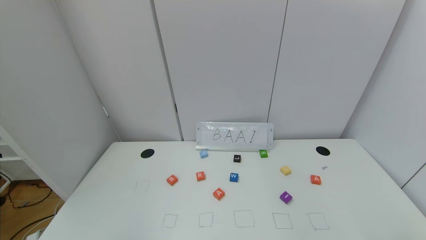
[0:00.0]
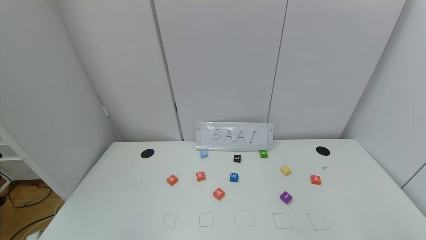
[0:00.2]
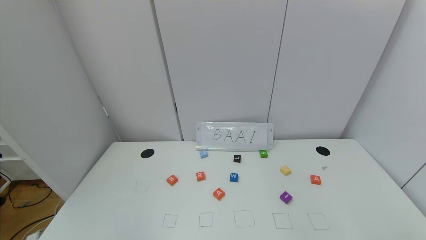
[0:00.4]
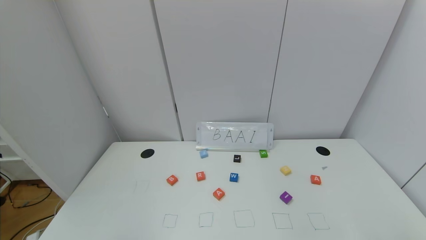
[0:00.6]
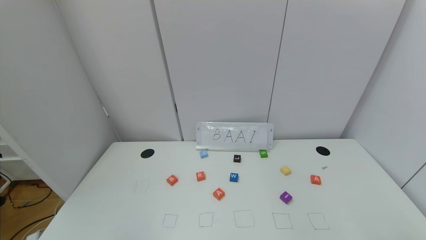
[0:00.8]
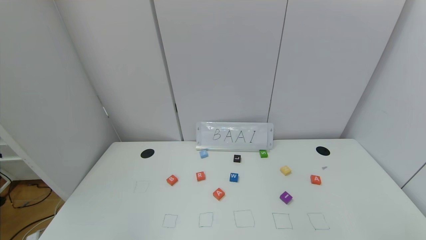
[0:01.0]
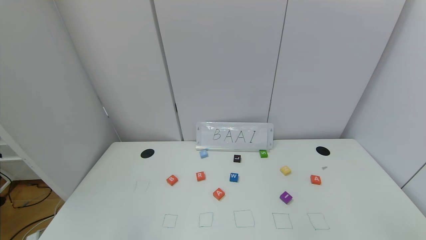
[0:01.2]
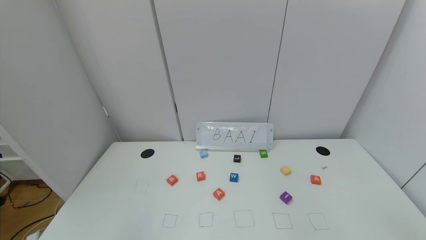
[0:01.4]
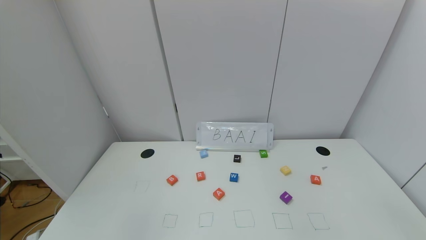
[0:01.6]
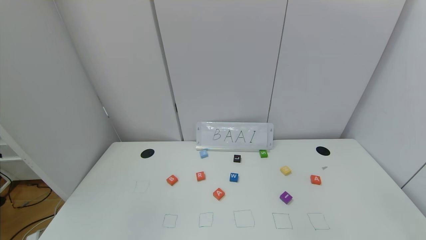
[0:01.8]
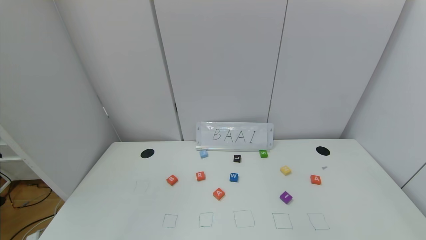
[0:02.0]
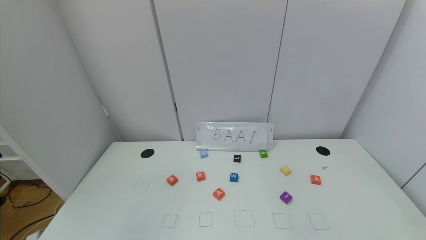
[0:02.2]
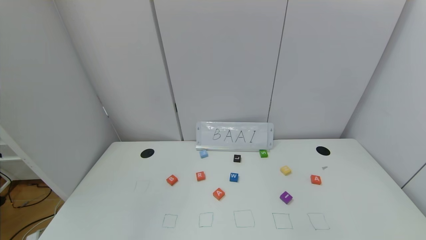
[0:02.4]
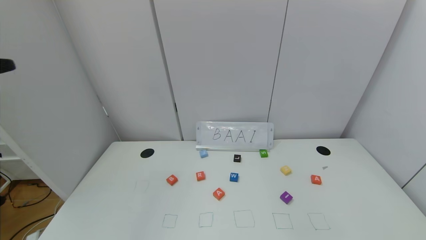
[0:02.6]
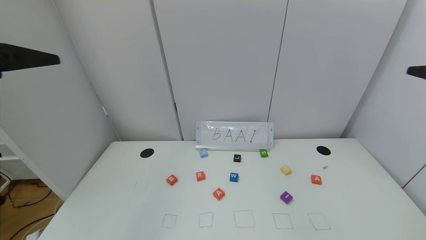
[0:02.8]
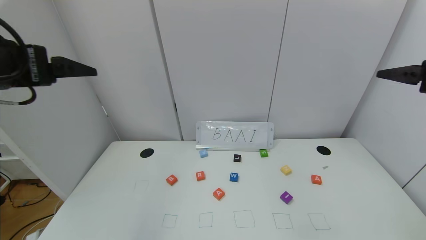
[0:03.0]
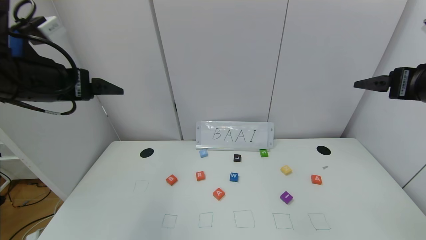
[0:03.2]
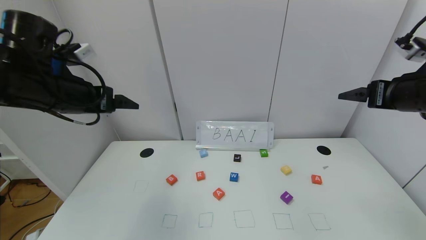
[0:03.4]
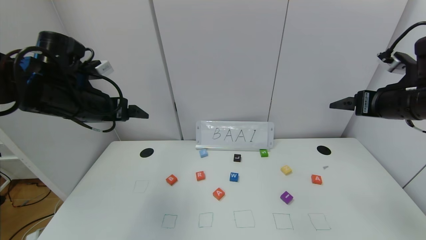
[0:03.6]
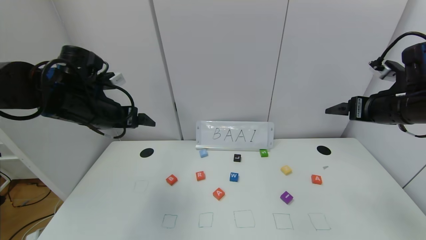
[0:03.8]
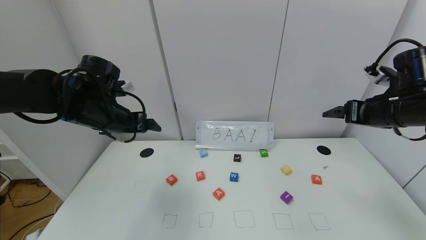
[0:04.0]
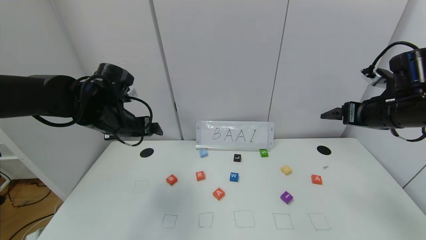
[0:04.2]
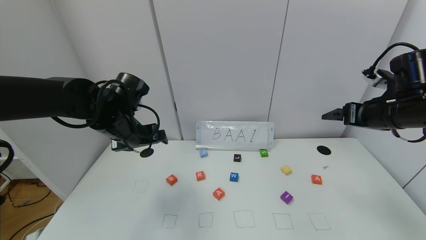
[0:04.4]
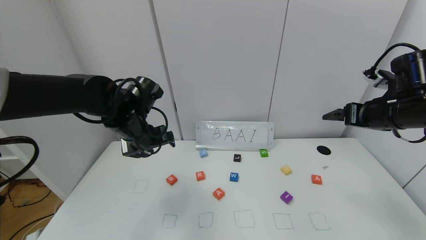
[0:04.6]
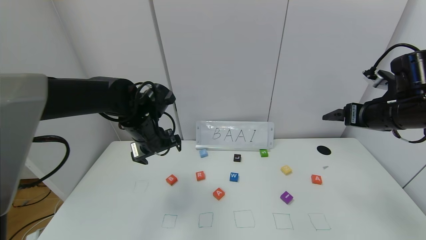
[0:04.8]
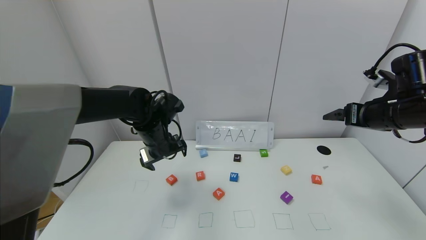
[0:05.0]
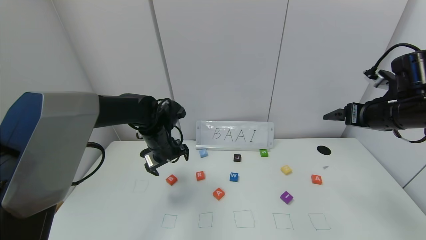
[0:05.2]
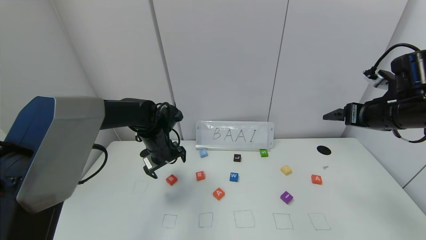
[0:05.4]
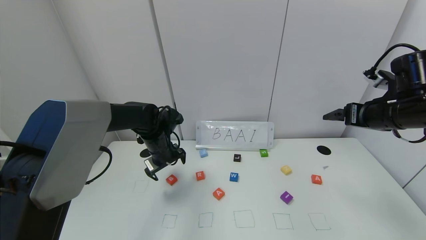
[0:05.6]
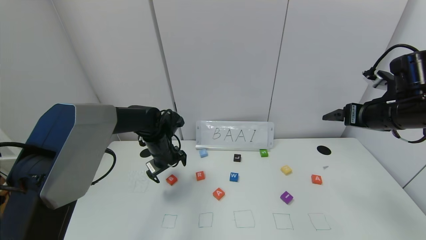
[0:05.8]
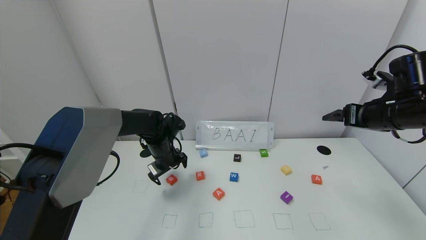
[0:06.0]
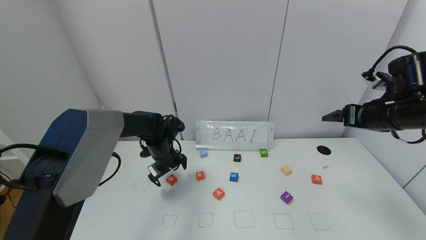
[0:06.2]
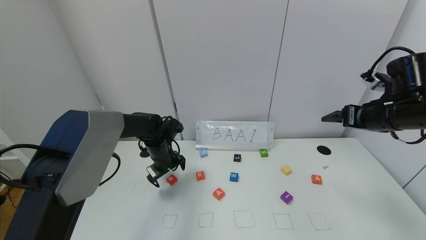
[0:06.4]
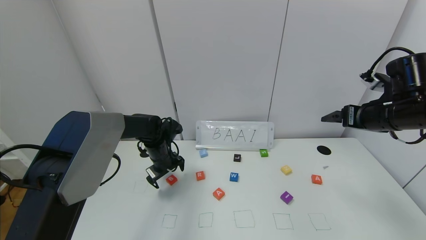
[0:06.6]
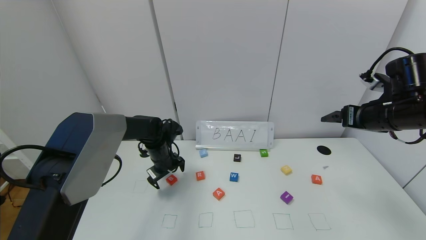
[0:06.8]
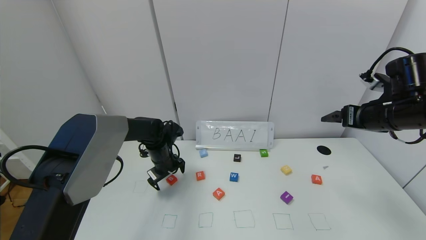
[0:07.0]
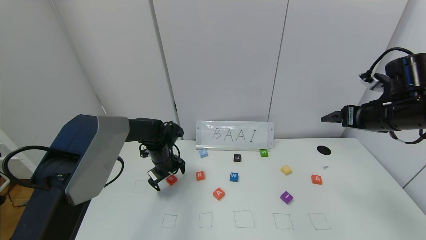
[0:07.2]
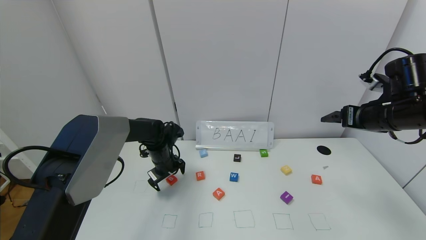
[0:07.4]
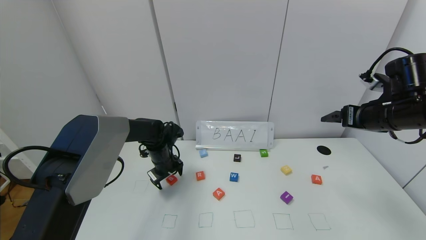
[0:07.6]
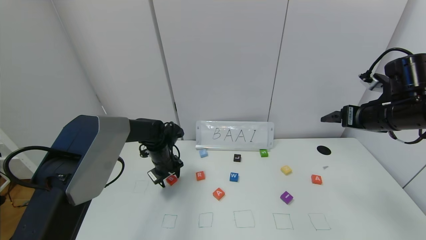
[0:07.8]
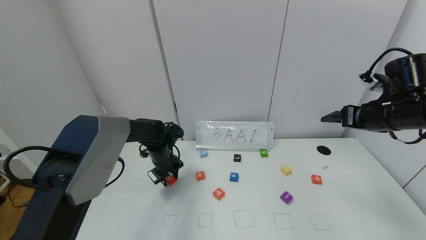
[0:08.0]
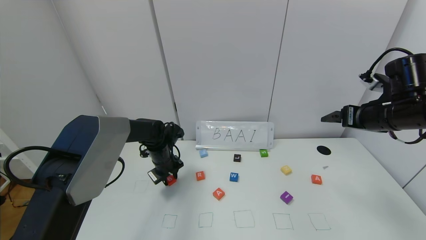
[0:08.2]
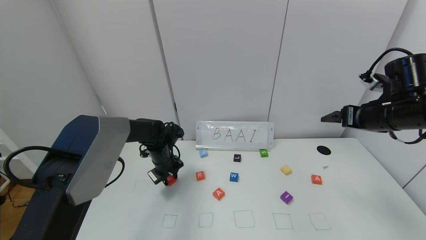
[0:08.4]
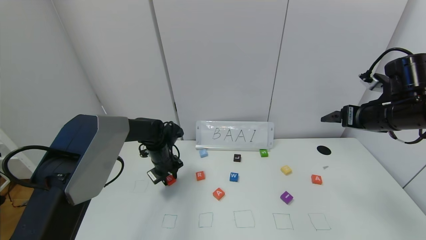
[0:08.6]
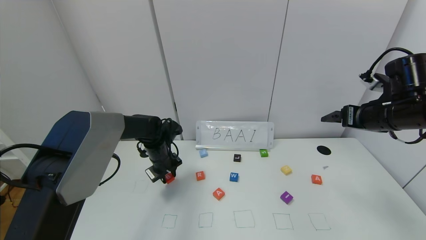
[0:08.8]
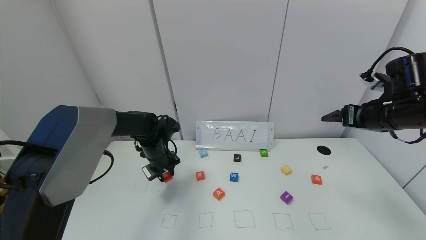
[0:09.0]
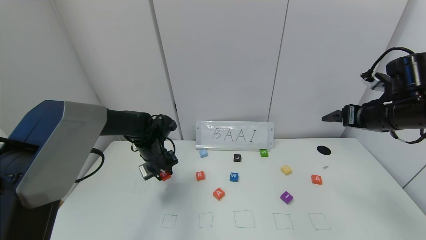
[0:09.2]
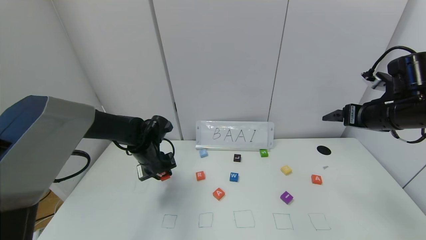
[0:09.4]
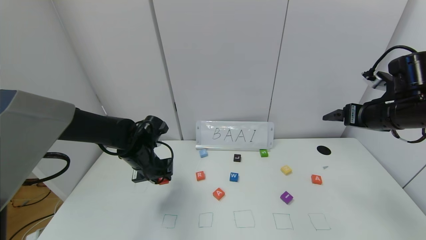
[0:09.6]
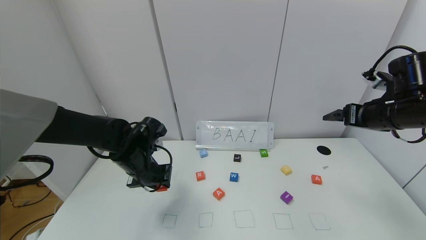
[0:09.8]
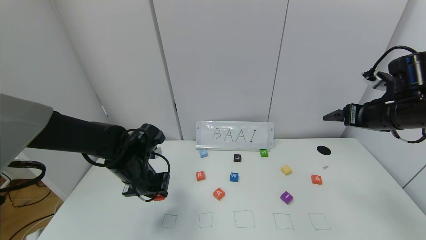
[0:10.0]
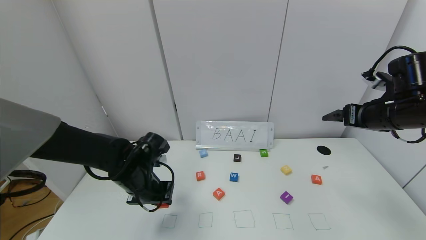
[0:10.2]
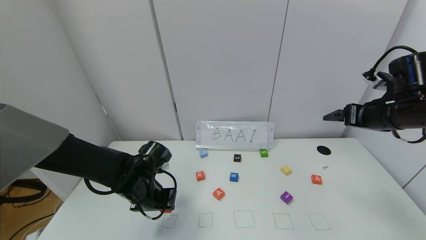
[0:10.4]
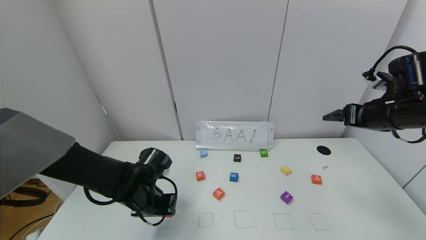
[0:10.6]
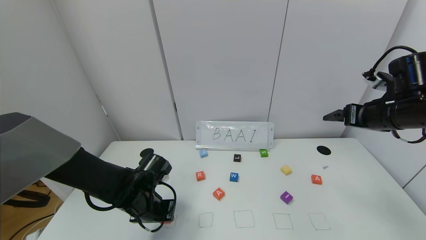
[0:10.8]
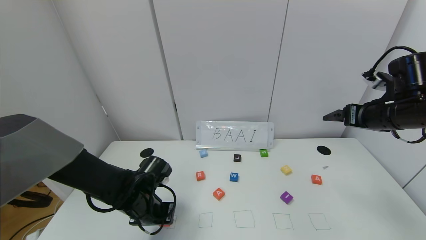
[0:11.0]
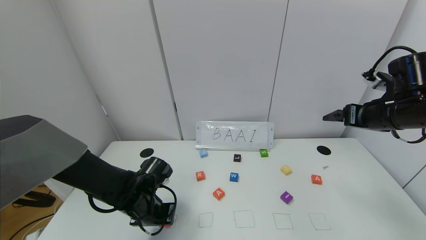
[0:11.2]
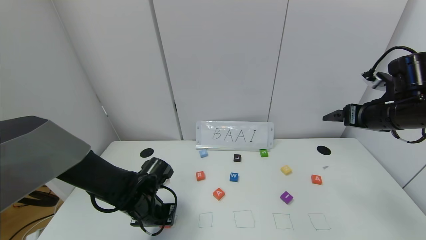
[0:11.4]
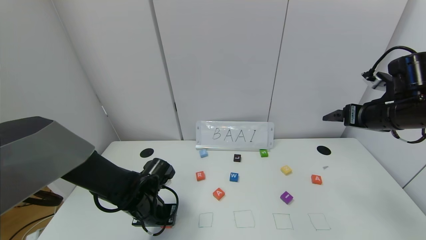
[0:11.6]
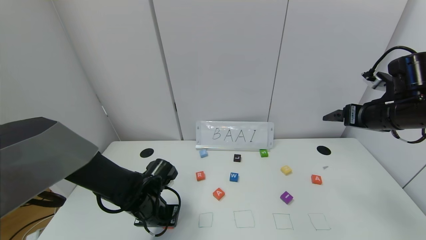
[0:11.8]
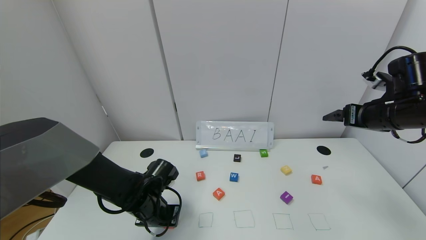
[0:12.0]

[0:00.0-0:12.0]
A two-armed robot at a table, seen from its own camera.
Task of the whole recording: use the gripper to find blocks with the letters b, a, a, and i on the table and arrange them into BAAI, then find r and N and turn the arranged baai into brian.
0:01.6 to 0:03.0: Both grippers travel together forward and upward, some 30 cm.
0:03.0 to 0:04.4: The right gripper heads forward and downward, covering approximately 15 cm, while the left gripper is displaced downward, forward and to the right by approximately 20 cm.
0:04.4 to 0:06.0: The left gripper shifts roughly 15 cm downward and forward.
0:06.0 to 0:07.6: The grippers move only a little.
0:07.6 to 0:09.0: The left gripper closes its fingers.
0:09.0 to 0:10.4: The left gripper shifts approximately 15 cm backward.
0:10.4 to 0:12.0: The grippers move only a little.

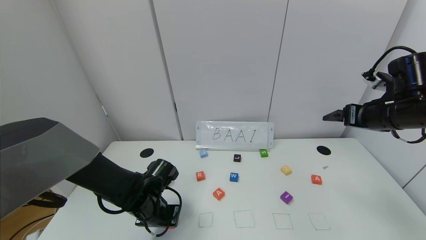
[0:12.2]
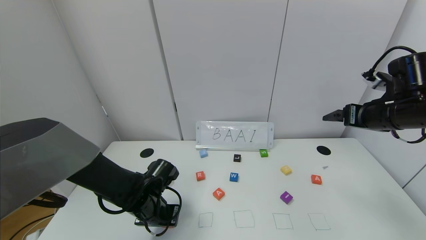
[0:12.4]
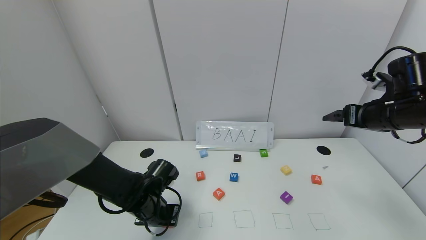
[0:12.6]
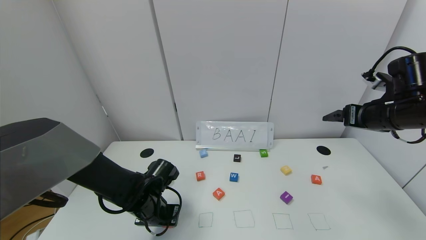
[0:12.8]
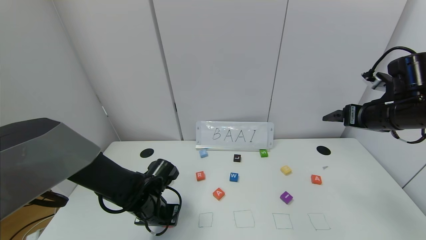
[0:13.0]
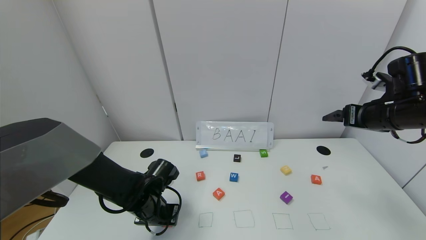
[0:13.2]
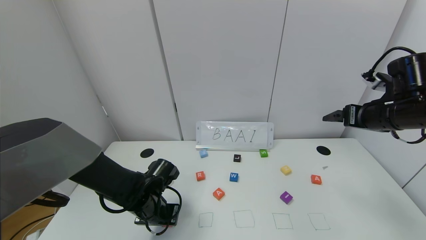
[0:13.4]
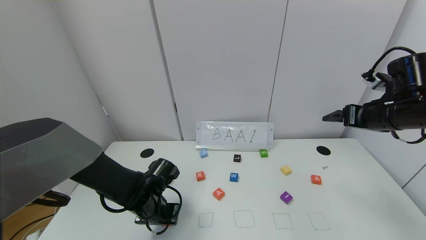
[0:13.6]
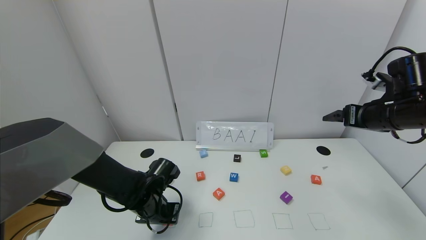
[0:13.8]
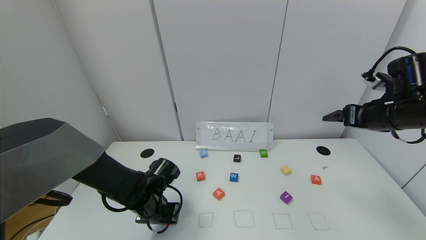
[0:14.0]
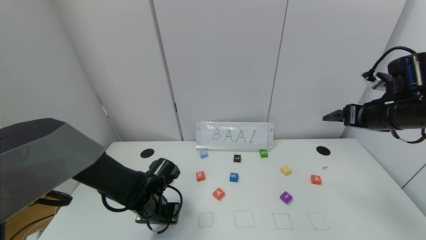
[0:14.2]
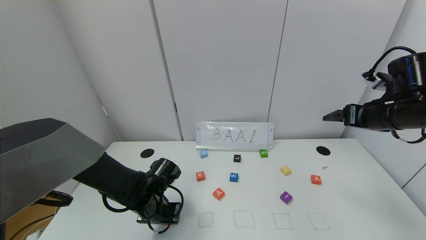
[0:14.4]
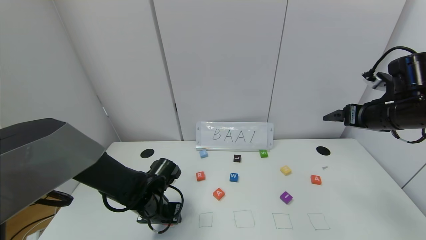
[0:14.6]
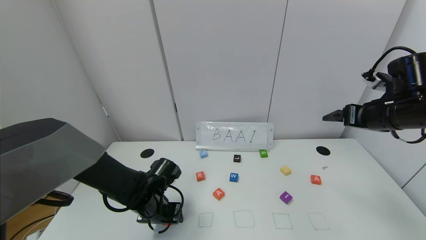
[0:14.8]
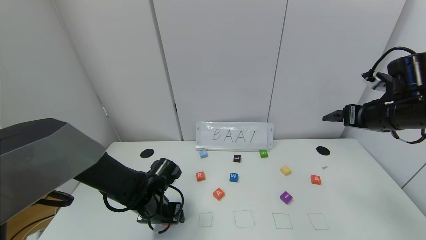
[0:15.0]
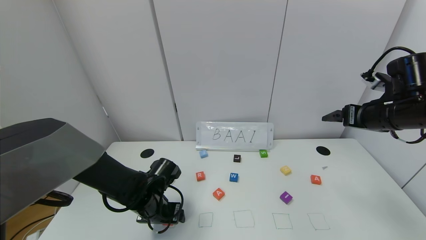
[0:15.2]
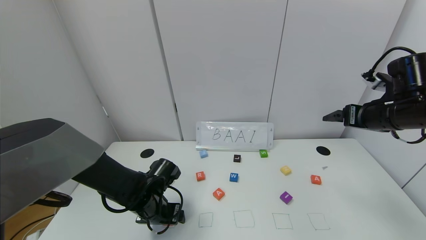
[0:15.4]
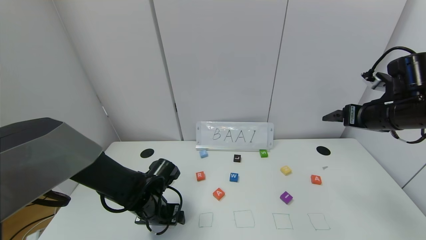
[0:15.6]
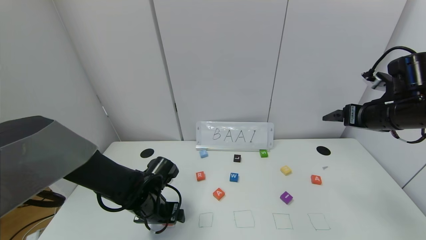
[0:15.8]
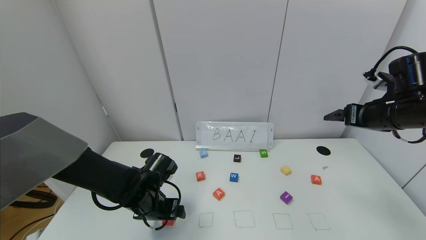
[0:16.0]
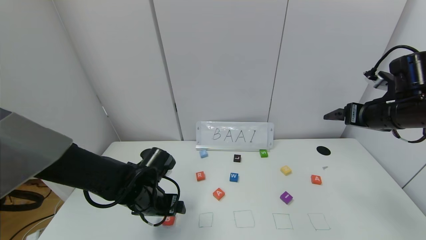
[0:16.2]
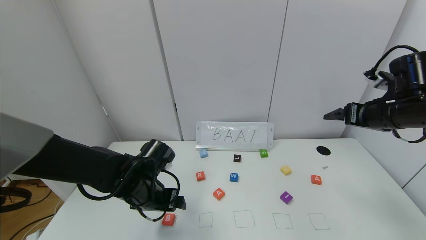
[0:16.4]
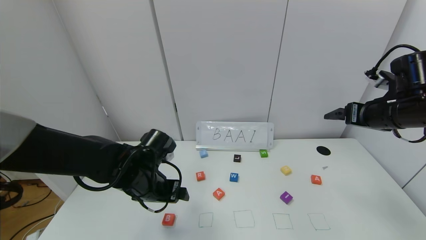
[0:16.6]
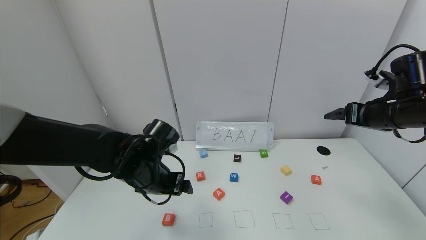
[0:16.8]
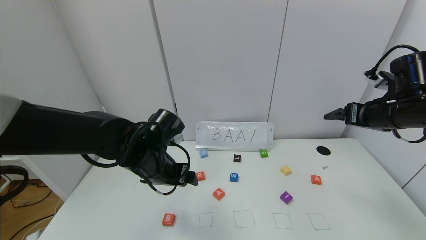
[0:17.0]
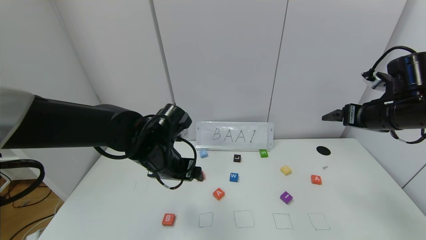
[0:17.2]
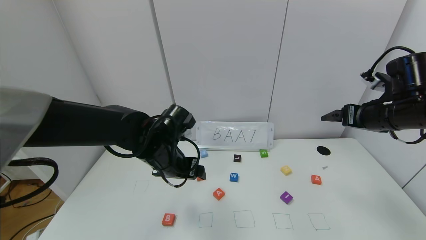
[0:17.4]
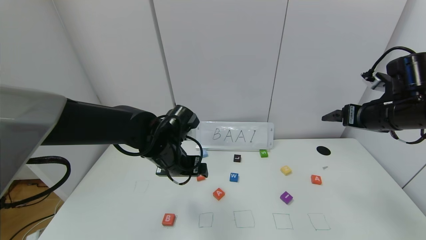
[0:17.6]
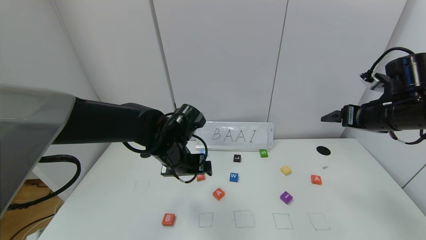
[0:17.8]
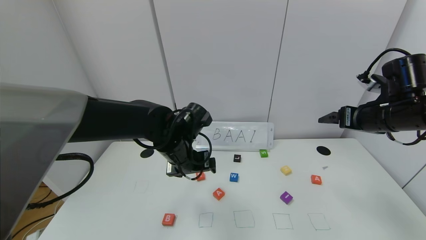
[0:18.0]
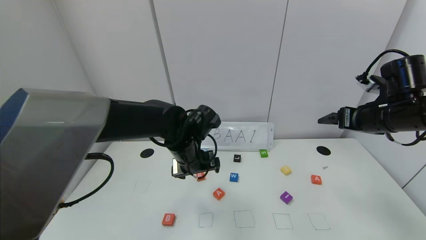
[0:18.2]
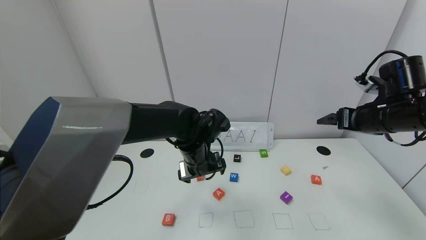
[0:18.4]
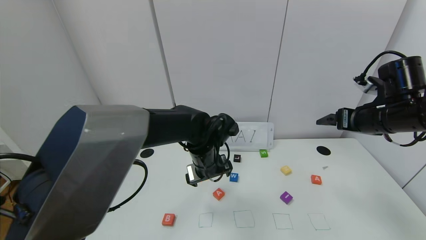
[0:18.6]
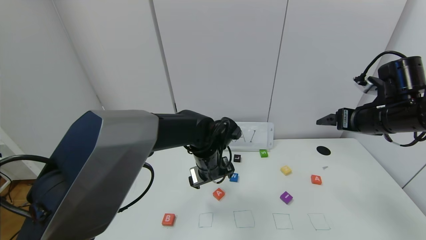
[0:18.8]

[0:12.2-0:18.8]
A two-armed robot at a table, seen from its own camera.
Task of the whole recording: use the gripper to find blocks with the letters b, a, a, and i on the table and arrange them into BAAI, then find r and N and turn the arranged baai into brian.
Step, 0:12.2 to 0:15.8: Place the block B in the first location.
0:12.2 to 0:13.8: Neither gripper changes place.
0:15.4 to 0:17.2: The left gripper travels upward by some 15 cm.
0:17.2 to 0:18.8: The left gripper is displaced to the right by roughly 10 cm.
